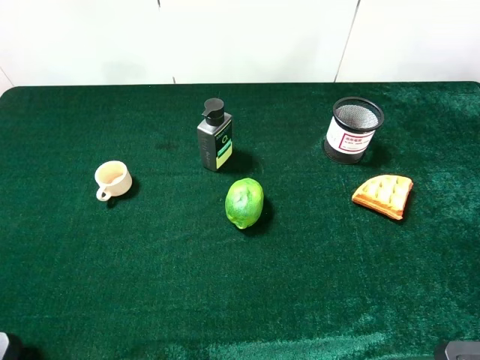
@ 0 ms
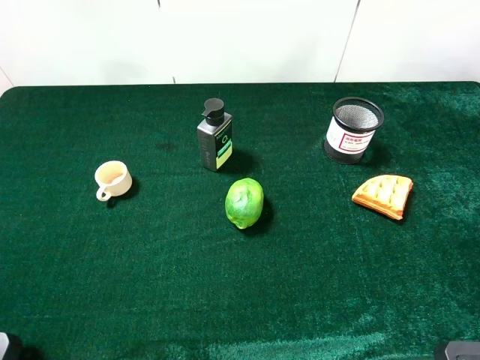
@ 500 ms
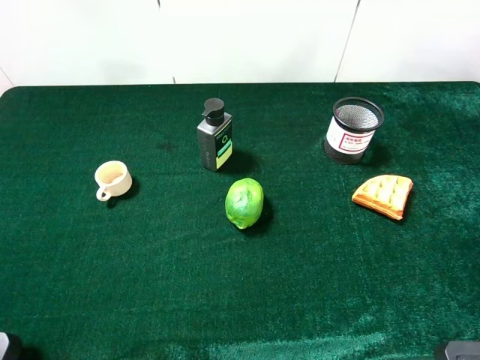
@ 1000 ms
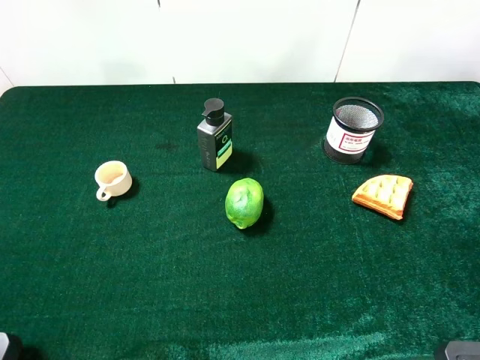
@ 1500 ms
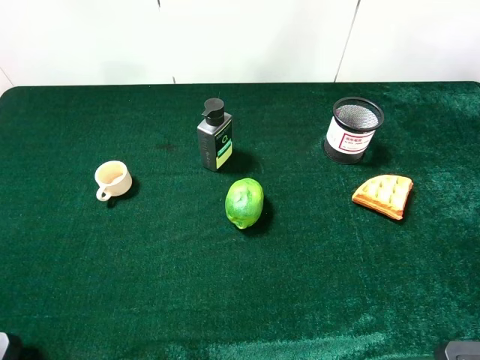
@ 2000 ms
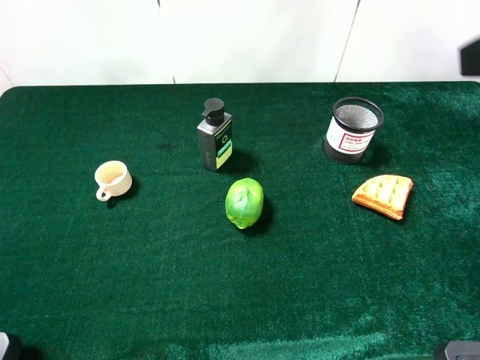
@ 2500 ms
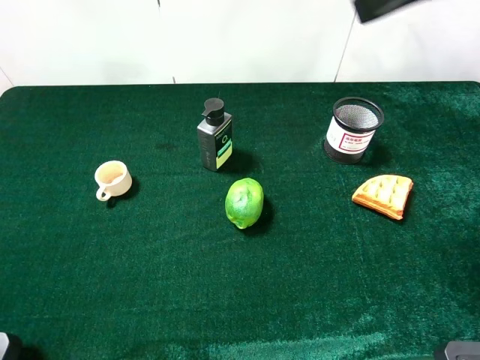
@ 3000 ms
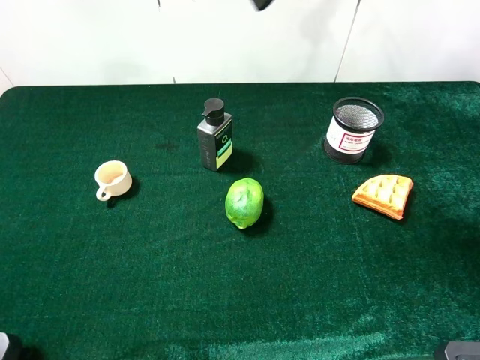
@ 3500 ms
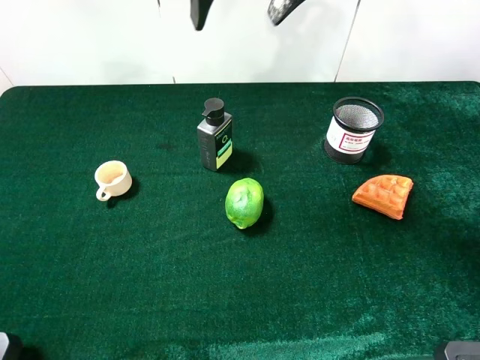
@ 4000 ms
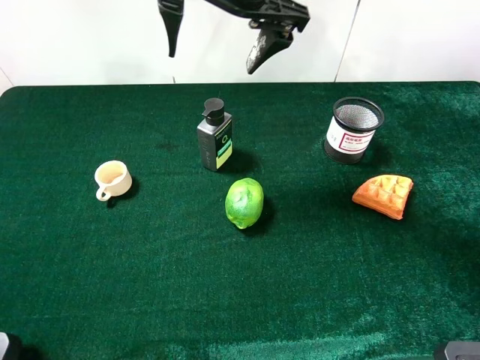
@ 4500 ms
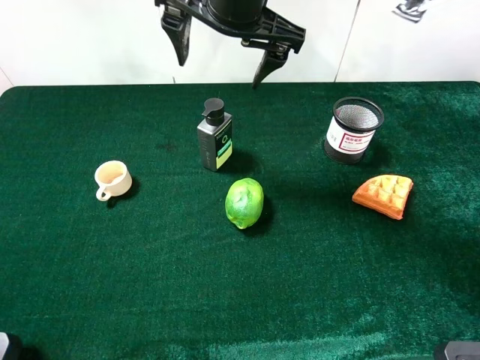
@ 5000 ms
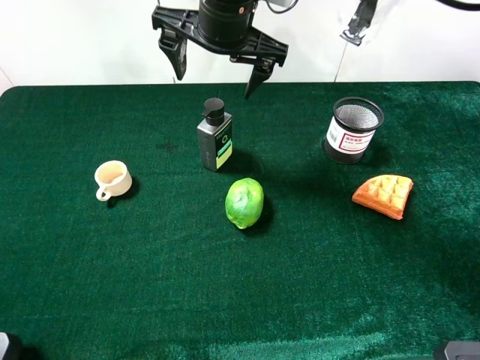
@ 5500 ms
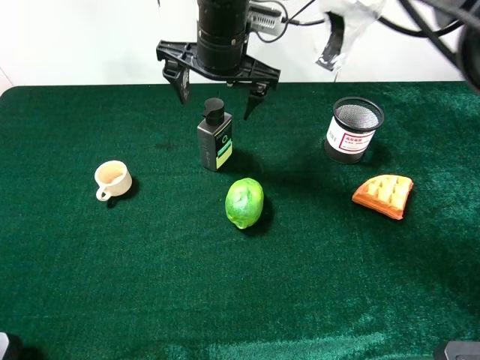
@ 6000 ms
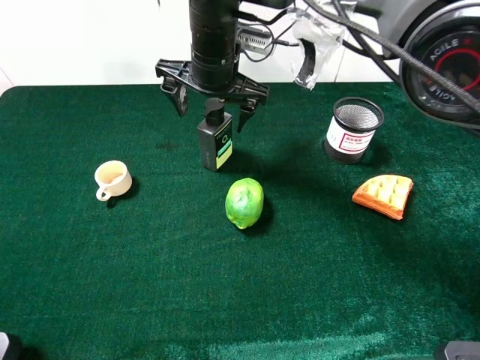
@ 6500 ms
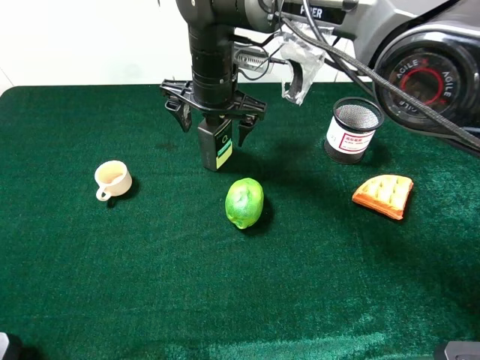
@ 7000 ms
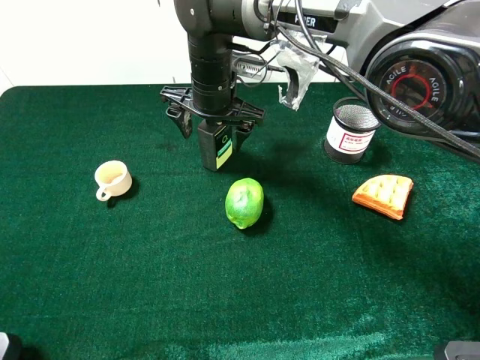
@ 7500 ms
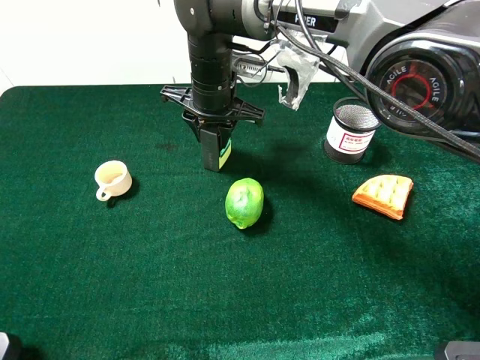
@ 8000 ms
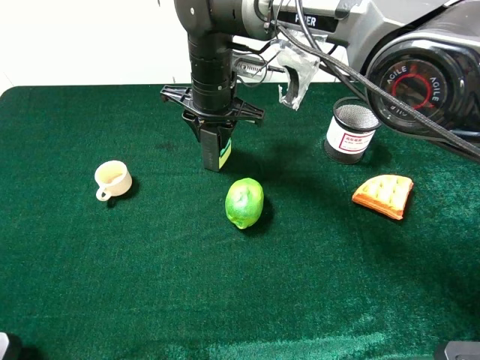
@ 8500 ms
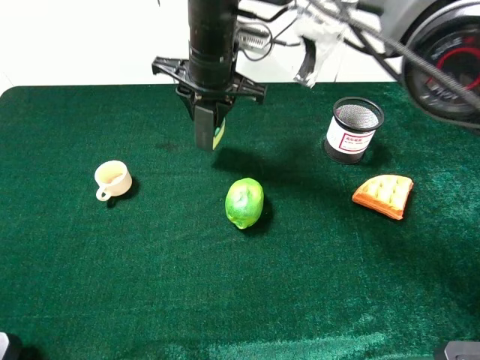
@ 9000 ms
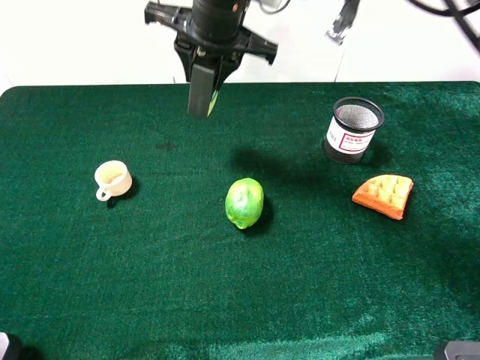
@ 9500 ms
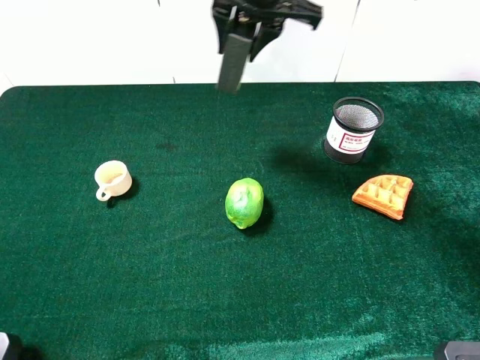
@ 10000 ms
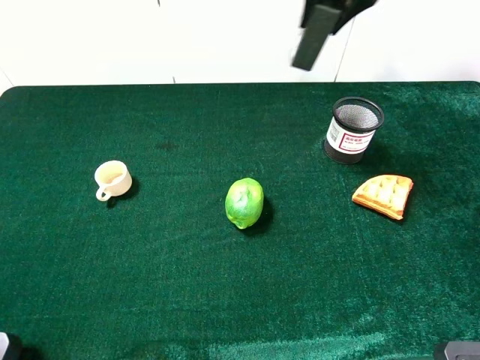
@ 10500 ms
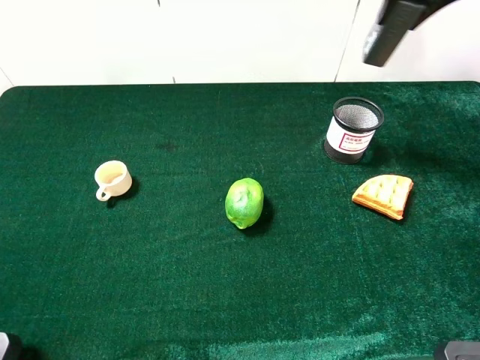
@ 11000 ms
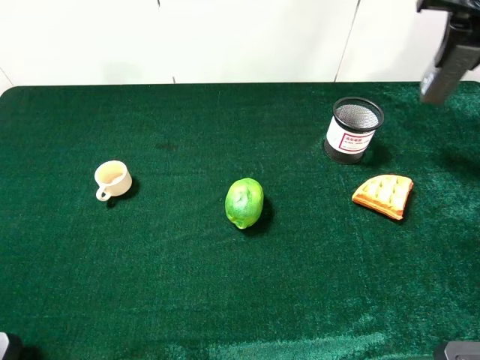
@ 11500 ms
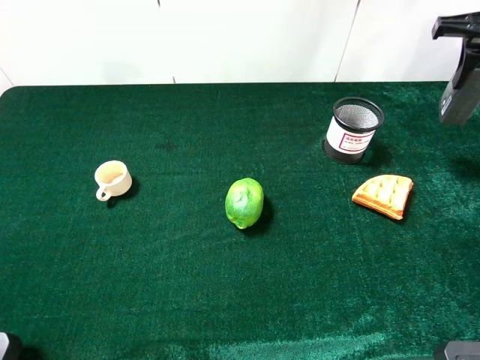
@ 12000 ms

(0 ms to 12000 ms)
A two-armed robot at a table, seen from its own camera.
Task of the whole recording: the gripper move the object.
2000 ms - 4000 ms: The right gripper moves to the left and forward, some 35 cm.
4000 ms - 6000 ms: The right gripper shifts some 15 cm downward and to the left.
6000 ms - 8000 ms: The right gripper travels downward by approximately 5 cm, and closes up.
8000 ms - 10000 ms: The right gripper moves upward and to the right, some 20 cm.
10000 ms - 12000 ms: The right gripper goes roughly 30 cm to the right.

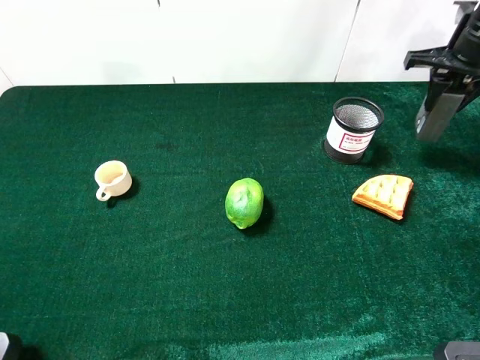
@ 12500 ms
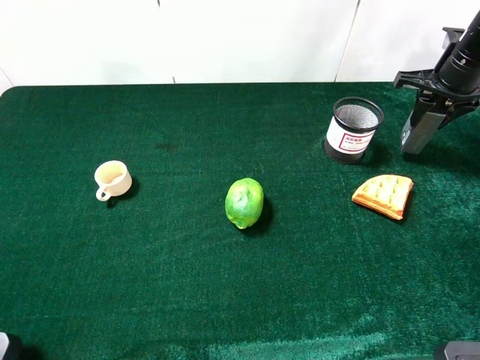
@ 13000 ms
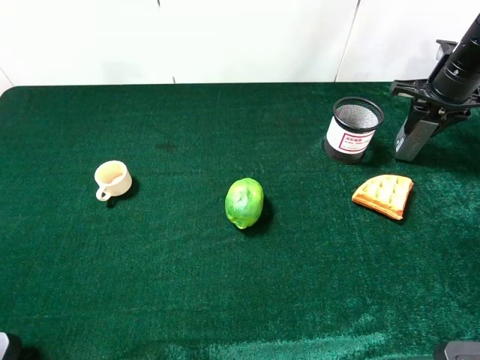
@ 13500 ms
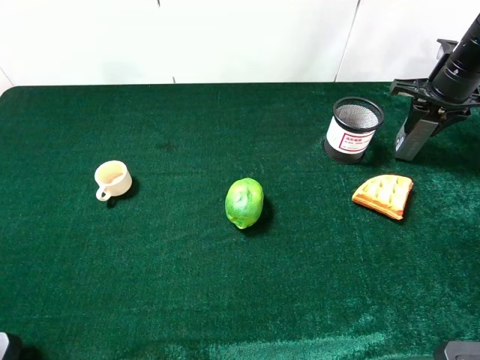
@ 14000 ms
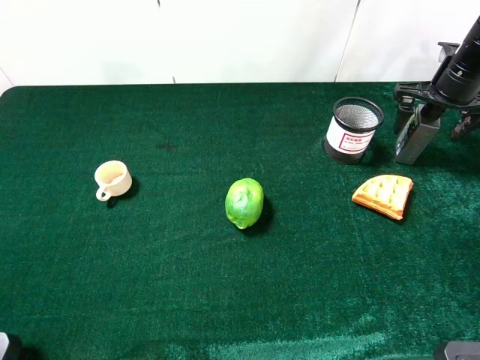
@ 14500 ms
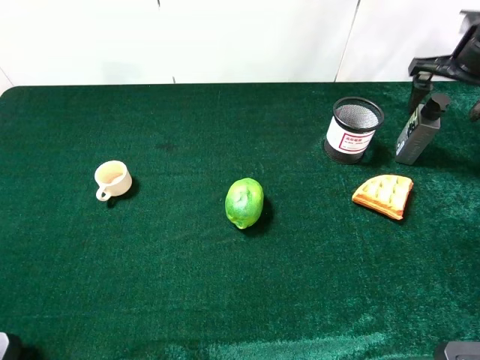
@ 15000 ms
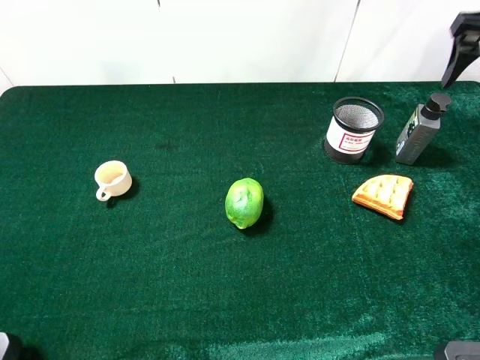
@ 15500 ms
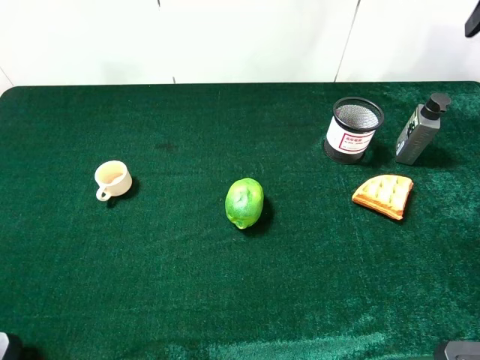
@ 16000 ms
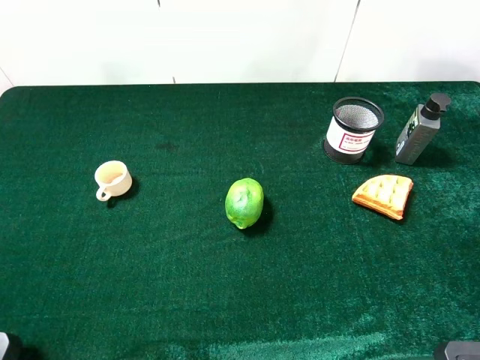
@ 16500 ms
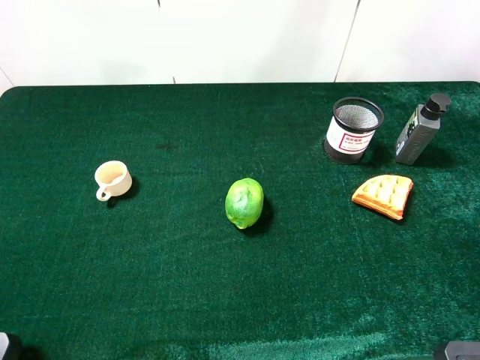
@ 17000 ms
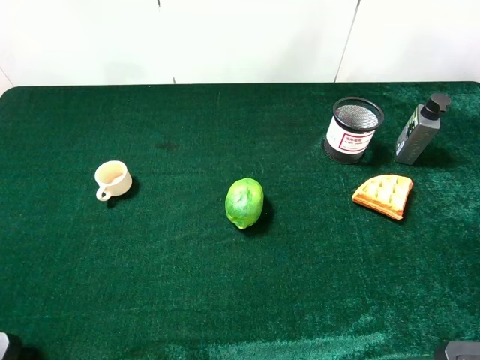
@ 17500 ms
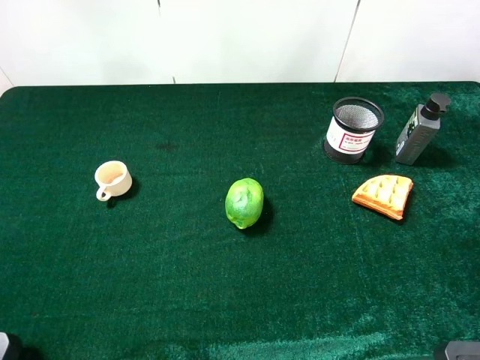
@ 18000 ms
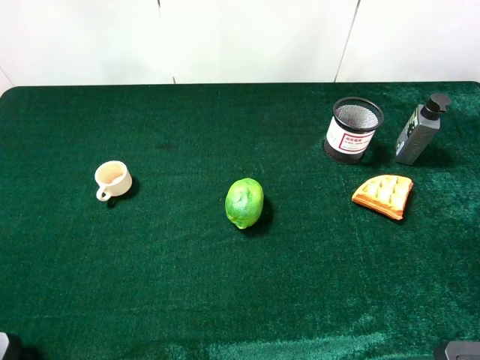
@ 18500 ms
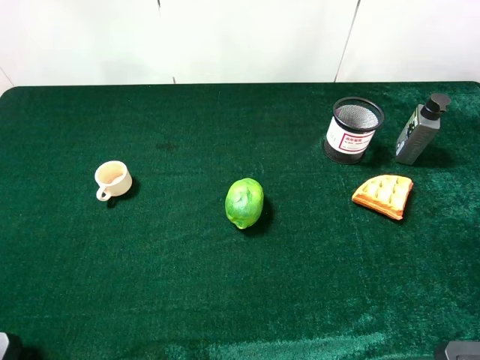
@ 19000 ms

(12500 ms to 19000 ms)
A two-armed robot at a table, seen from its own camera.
Task of the whole recording: the gripper move the object.
12500 ms - 14500 ms: The right gripper travels downward by roughly 5 cm, and opens.
14500 ms - 17000 ms: The right gripper travels backward and upward by roughly 35 cm.
